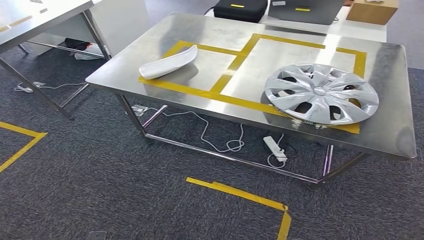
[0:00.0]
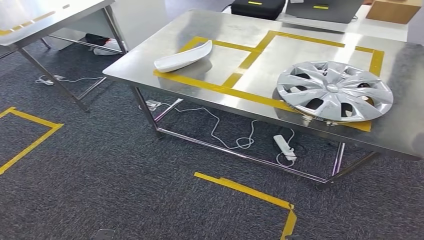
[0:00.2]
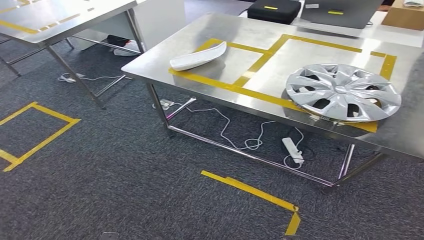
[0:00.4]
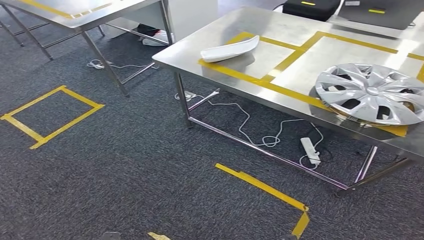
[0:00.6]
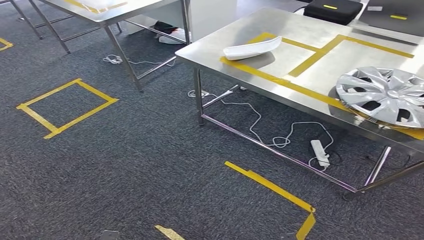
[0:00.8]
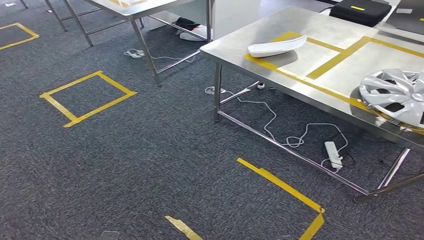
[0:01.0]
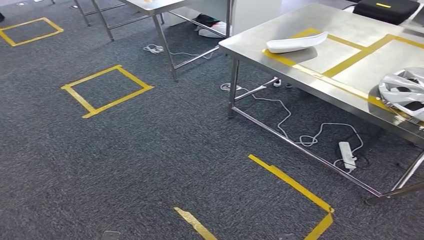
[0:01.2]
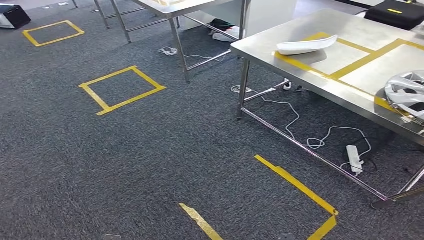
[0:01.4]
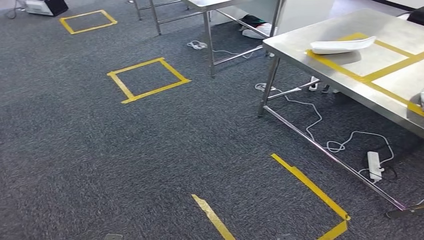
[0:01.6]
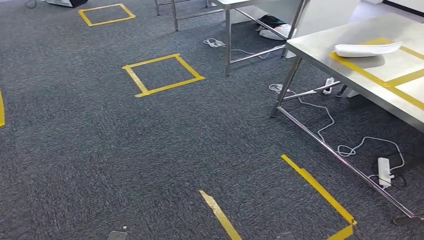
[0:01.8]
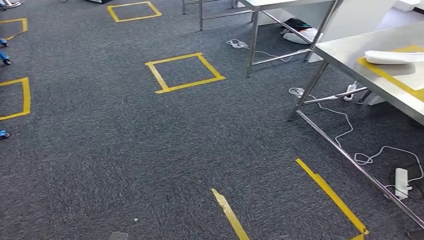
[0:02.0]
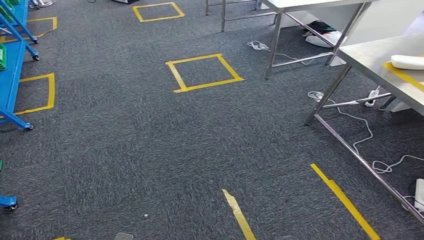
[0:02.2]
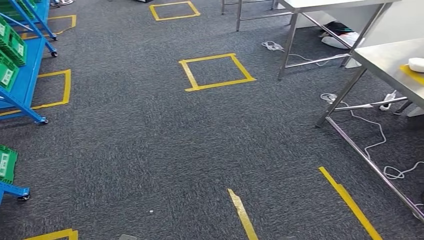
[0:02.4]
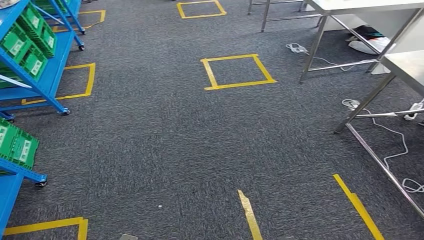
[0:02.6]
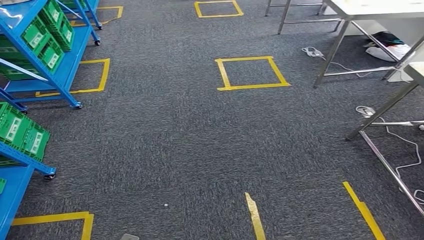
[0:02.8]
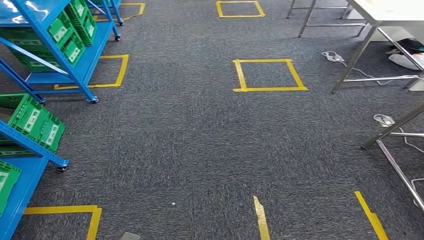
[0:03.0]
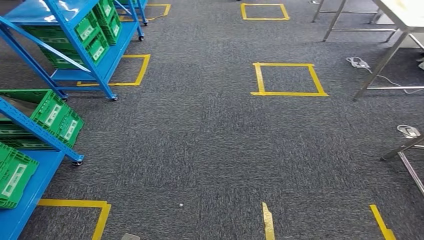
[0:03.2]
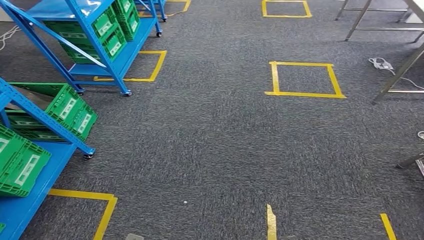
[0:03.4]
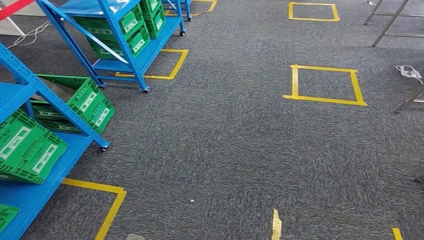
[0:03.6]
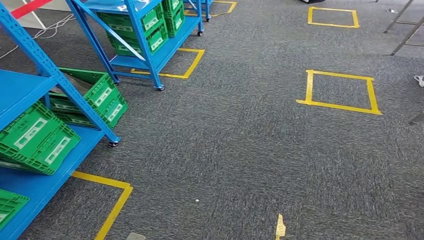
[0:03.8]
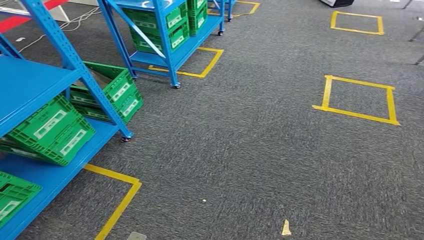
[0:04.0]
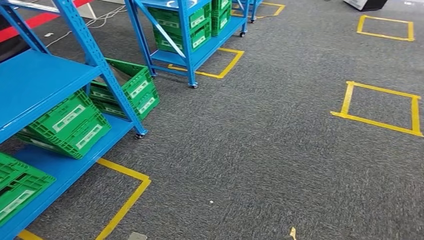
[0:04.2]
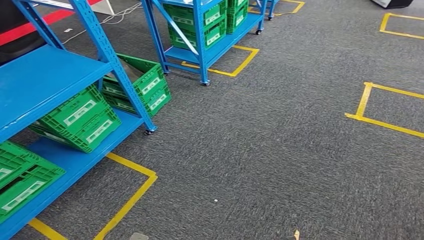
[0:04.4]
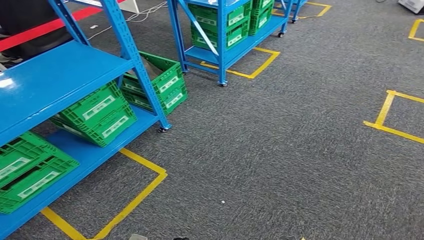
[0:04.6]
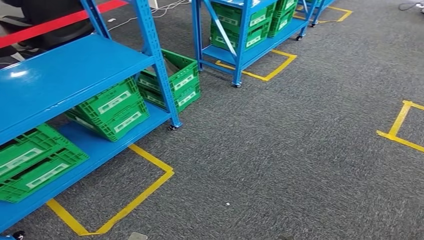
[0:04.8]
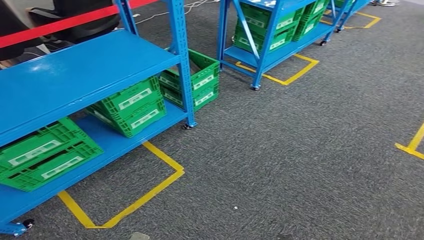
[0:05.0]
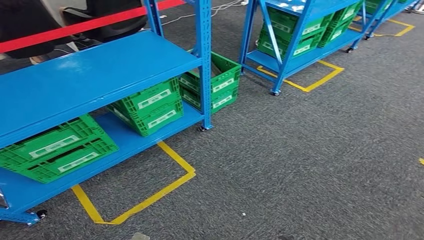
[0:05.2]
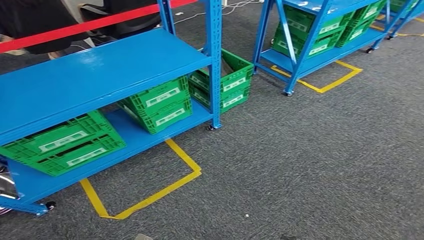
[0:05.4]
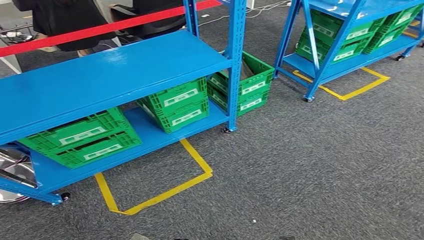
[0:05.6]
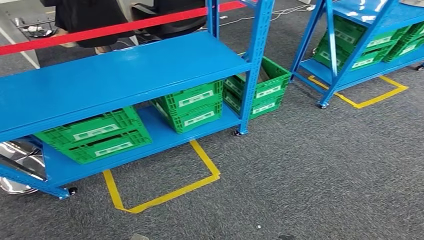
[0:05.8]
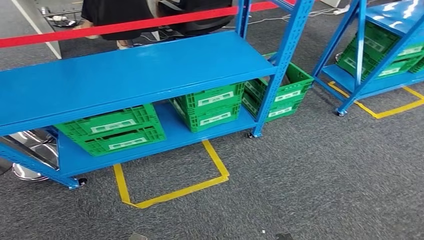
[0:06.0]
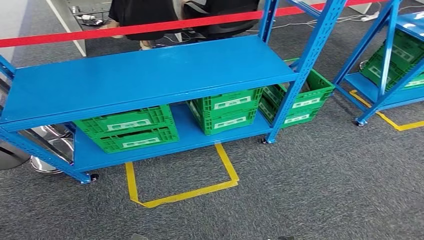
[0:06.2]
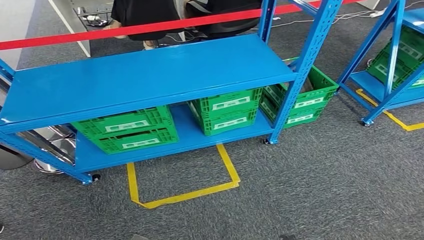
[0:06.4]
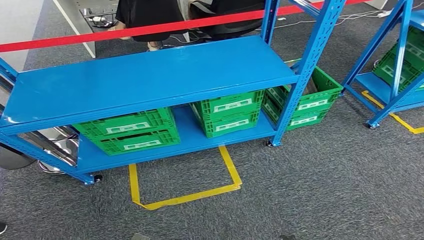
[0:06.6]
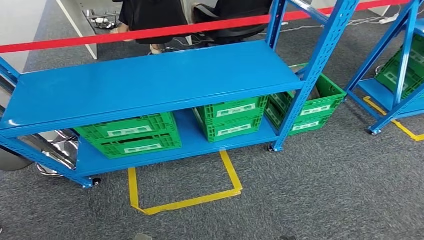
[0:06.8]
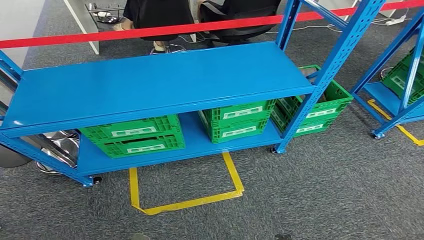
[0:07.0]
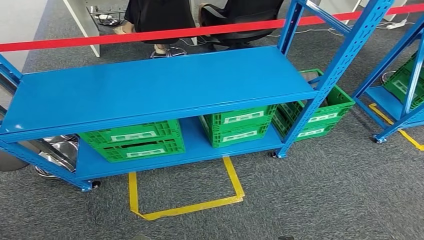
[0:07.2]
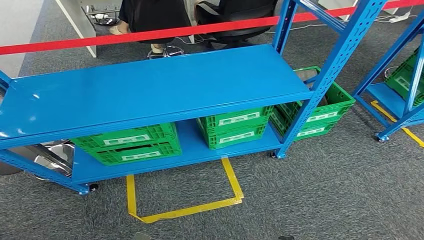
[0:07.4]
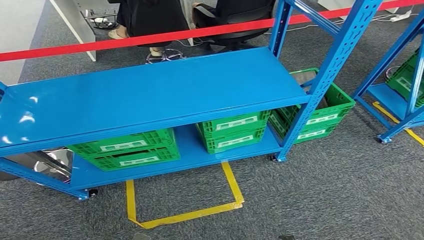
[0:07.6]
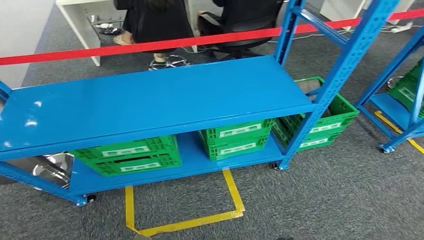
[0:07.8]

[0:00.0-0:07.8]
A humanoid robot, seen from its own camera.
Step, 0:00.0 to 0:07.8: Move to the initial position of the workbench.
